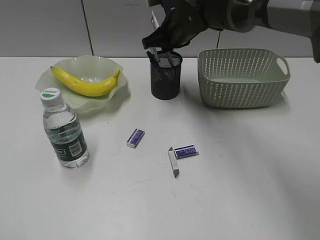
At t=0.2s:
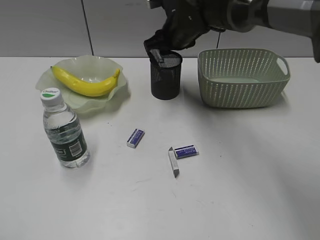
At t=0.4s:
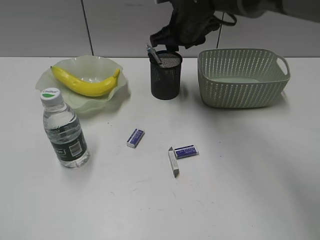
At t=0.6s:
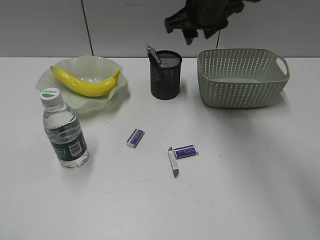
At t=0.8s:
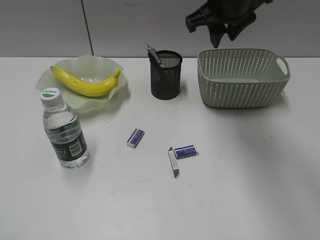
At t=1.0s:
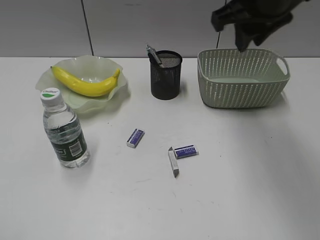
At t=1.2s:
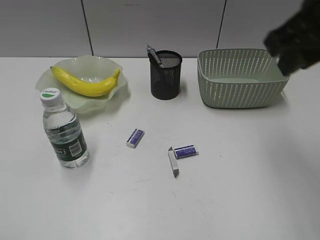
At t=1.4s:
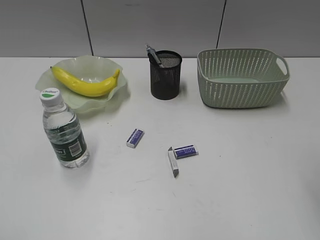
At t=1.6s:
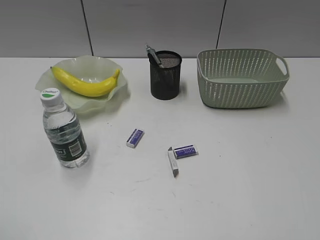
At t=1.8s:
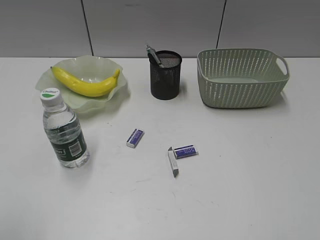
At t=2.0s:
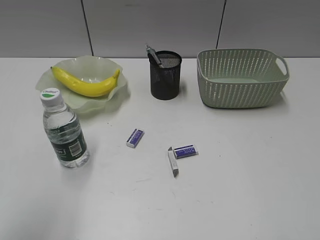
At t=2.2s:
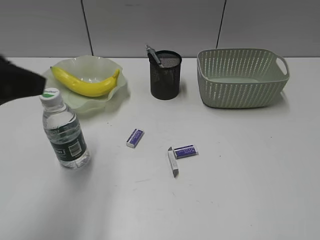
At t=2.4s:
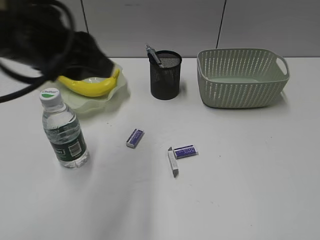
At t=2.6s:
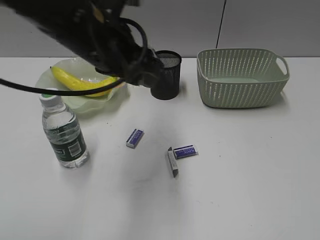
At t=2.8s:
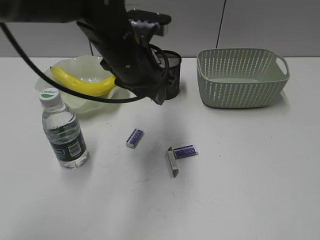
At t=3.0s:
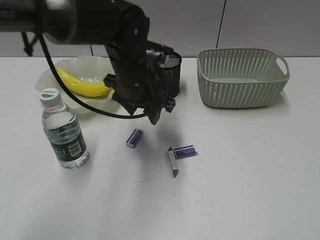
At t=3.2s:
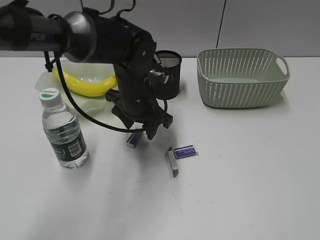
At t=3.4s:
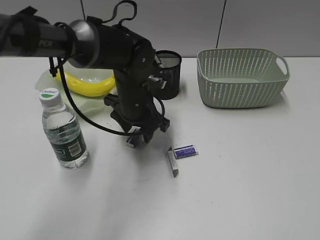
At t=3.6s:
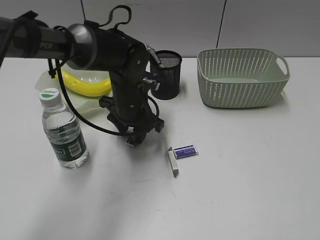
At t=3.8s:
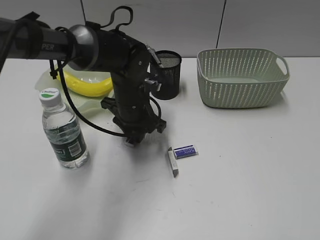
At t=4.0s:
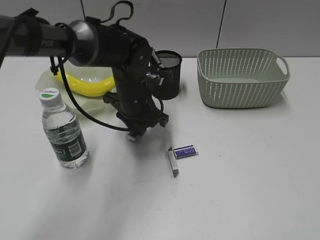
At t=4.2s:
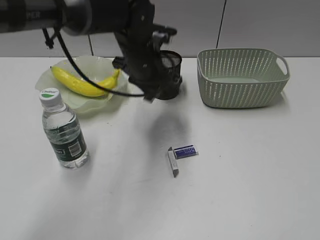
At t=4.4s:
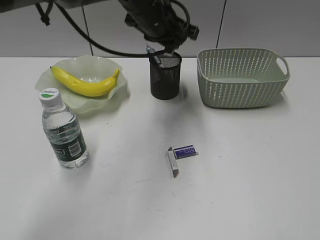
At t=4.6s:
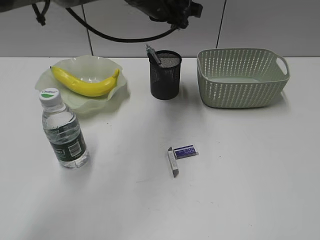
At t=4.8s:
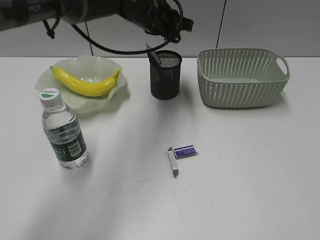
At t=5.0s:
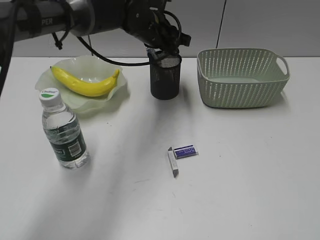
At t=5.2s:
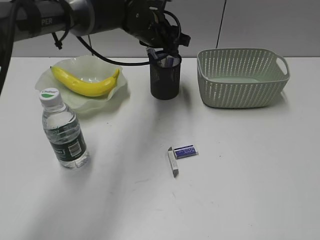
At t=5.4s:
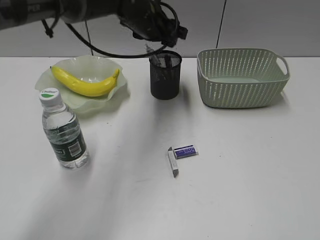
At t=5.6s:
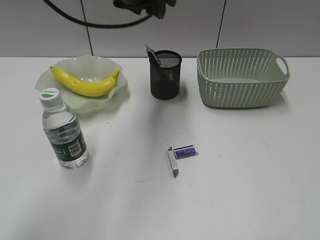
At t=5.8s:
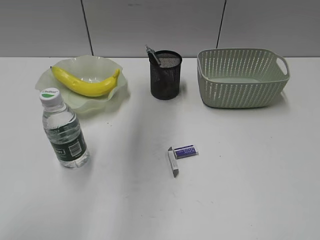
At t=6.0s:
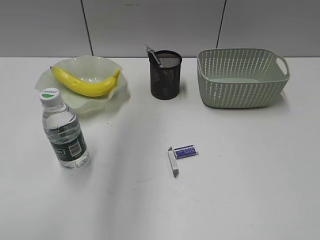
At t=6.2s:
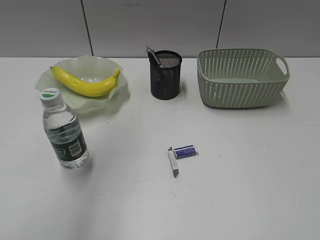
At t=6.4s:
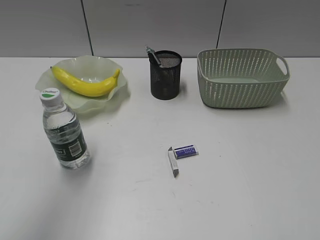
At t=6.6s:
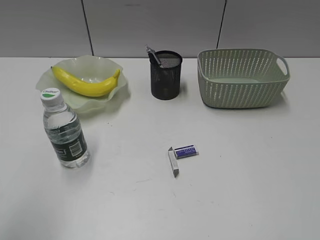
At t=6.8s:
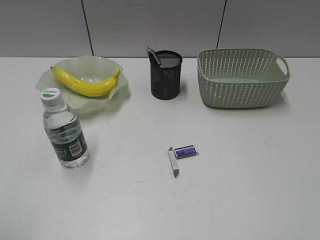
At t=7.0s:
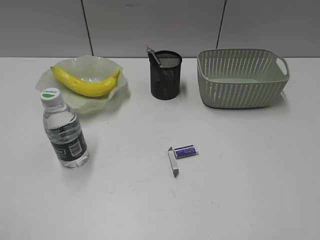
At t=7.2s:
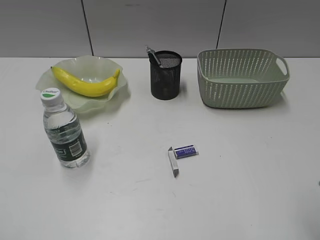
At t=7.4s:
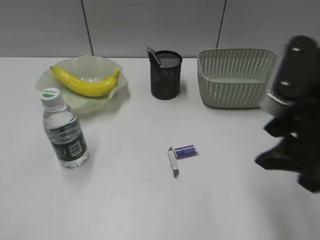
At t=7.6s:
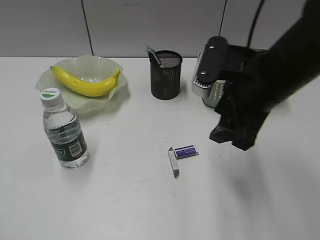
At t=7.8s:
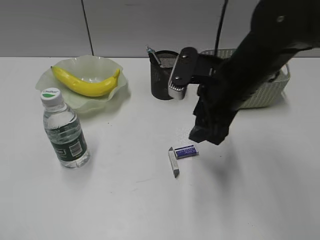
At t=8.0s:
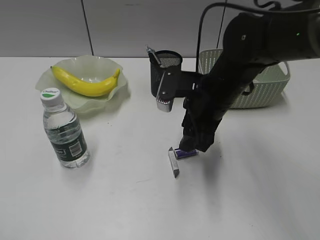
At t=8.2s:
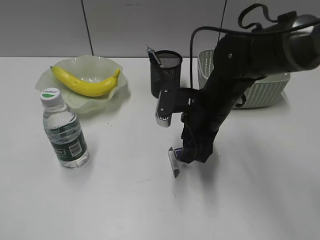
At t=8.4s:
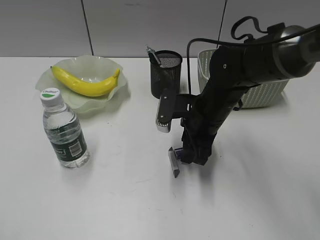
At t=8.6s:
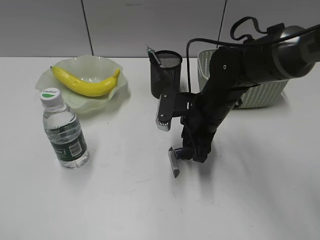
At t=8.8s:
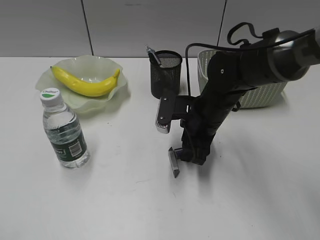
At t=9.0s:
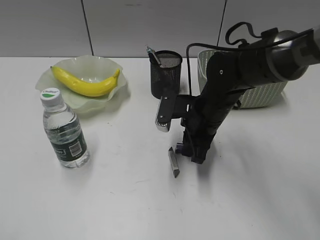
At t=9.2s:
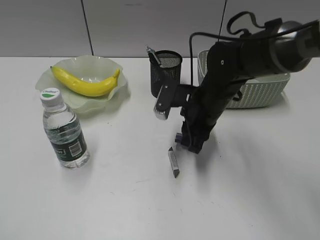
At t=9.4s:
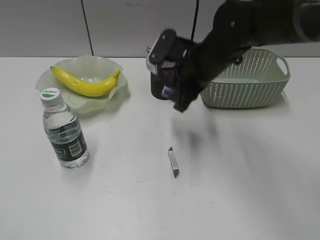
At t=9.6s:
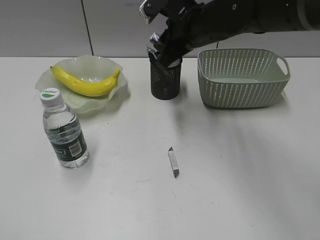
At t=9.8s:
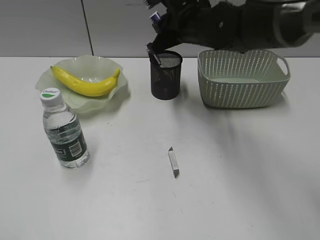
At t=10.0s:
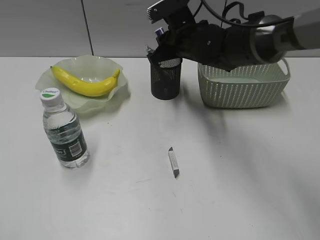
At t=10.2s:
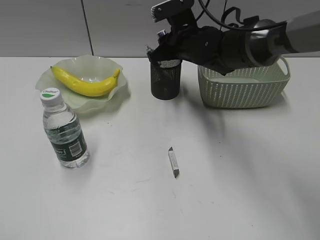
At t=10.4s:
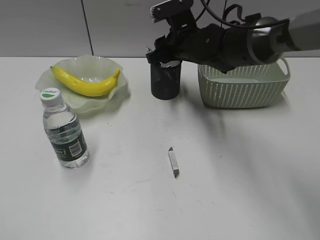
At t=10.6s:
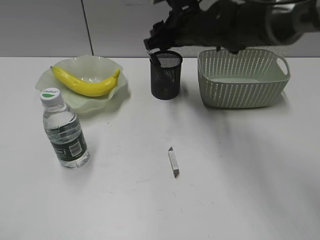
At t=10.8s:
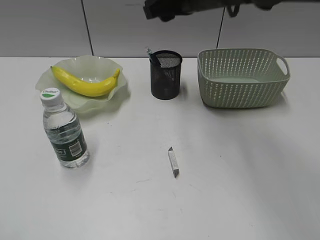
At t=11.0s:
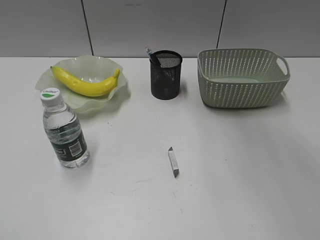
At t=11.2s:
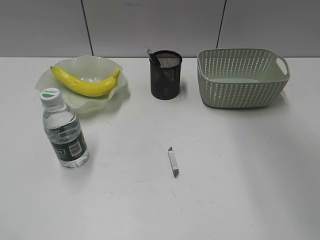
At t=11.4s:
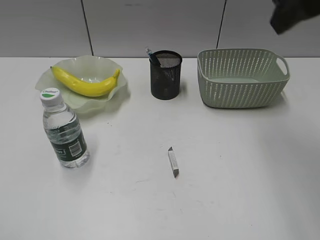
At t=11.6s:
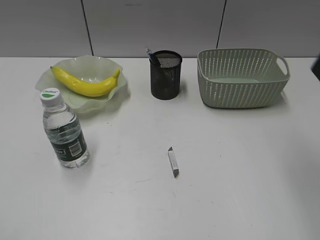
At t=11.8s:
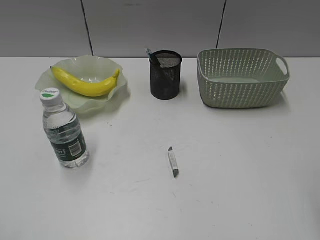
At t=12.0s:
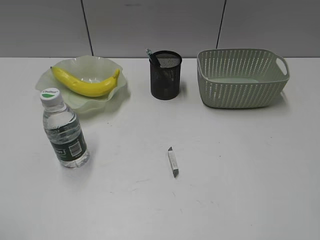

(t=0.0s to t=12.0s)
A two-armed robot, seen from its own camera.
Step, t=0.4s - t=3.8s: Grasp the eraser with left gripper.
Step, t=4.0s - t=5.2s: Place the eraser in pen holder with left gripper.
Step, t=5.4s - t=9.0s: Grasp the eraser with right gripper.
Step, t=9.2s - t=10.4s: Place the eraser in pen holder with right gripper.
t=0.0s - t=1.6s: The right gripper moves backward and to the right, about 40 cm.
t=1.6s - t=3.0s: The left gripper shifts some 40 cm forward and to the right. The right gripper heads backward and to the right, covering roughly 10 cm.
t=3.0s - t=4.4s: The left gripper moves upward and forward, approximately 10 cm, and closes.
t=4.4s - t=6.0s: The left gripper is displaced upward, to the left and backward by about 25 cm, and opens its fingers.
t=6.0s - t=7.6s: The left gripper moves backward, to the left and downward, about 40 cm. Meanwhile the right gripper heads forward and to the left, covering roughly 30 cm, and opens.
t=7.6s - t=9.0s: The right gripper is displaced downward and forward by roughly 15 cm, and closes.
t=9.0s - t=10.4s: The right gripper goes roughly 10 cm forward and upward, and opens its fingers.
t=10.4s - t=12.0s: The right gripper is displaced backward and to the right by approximately 40 cm.

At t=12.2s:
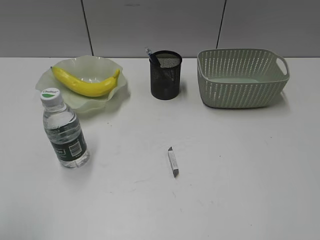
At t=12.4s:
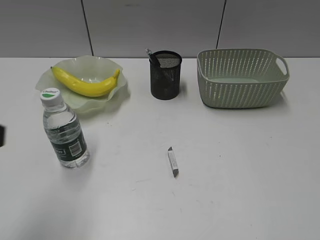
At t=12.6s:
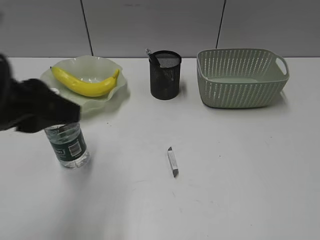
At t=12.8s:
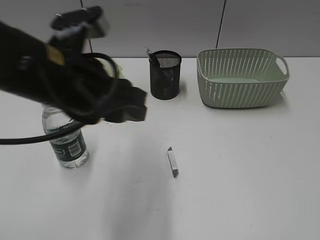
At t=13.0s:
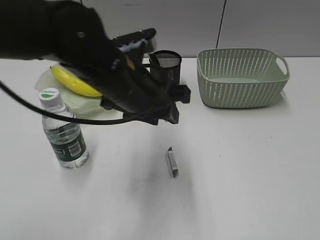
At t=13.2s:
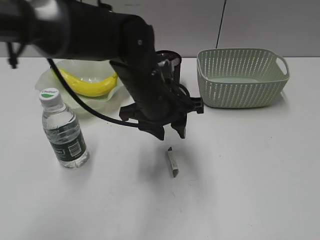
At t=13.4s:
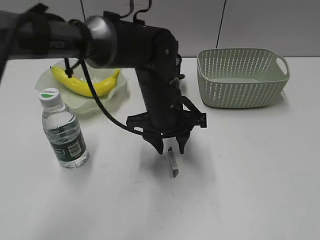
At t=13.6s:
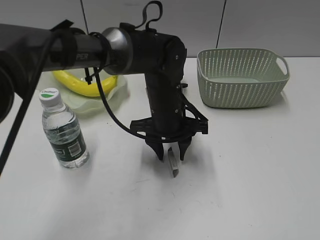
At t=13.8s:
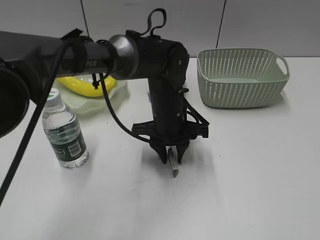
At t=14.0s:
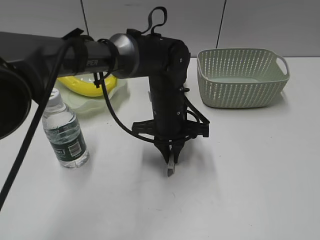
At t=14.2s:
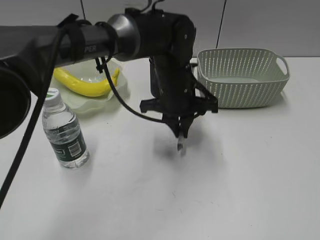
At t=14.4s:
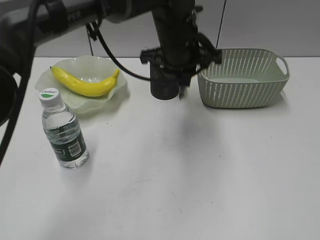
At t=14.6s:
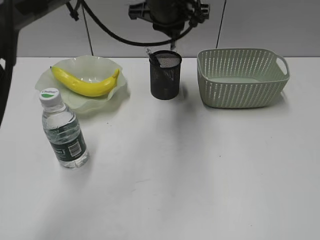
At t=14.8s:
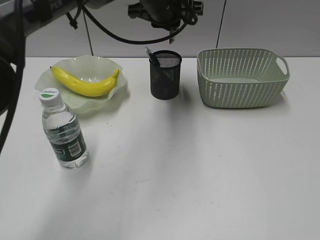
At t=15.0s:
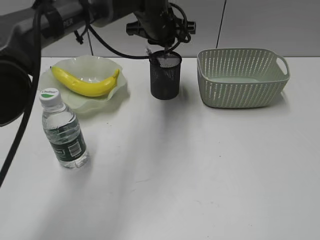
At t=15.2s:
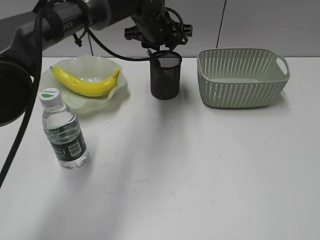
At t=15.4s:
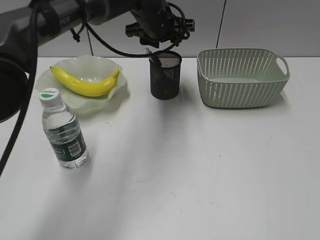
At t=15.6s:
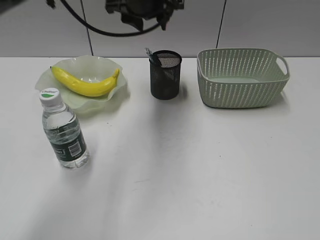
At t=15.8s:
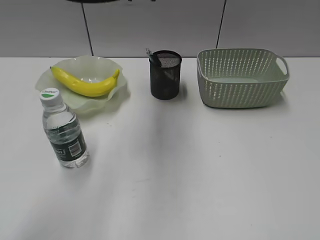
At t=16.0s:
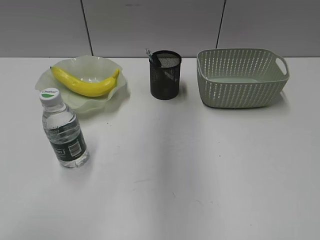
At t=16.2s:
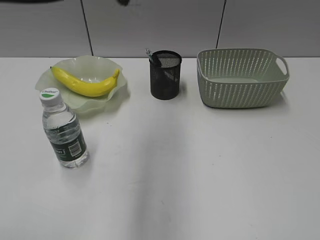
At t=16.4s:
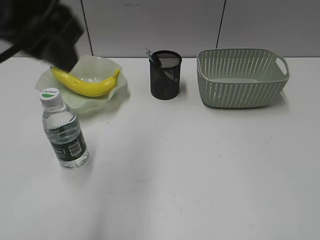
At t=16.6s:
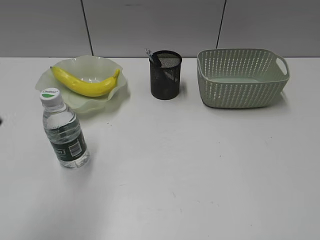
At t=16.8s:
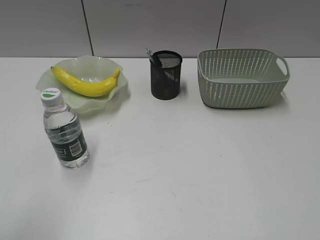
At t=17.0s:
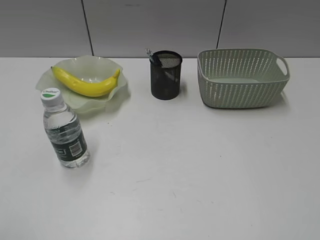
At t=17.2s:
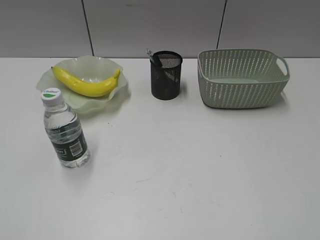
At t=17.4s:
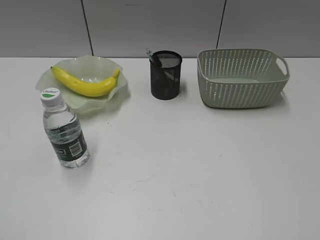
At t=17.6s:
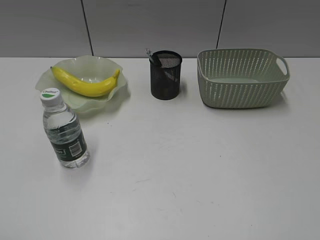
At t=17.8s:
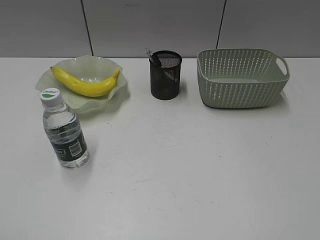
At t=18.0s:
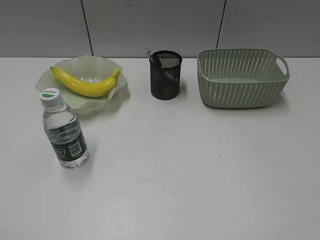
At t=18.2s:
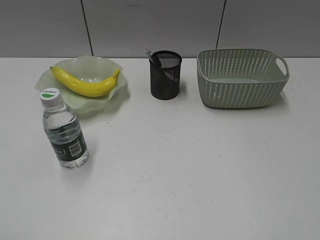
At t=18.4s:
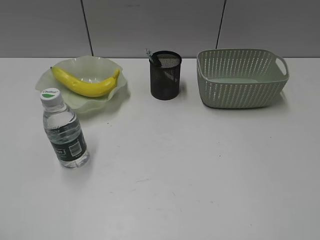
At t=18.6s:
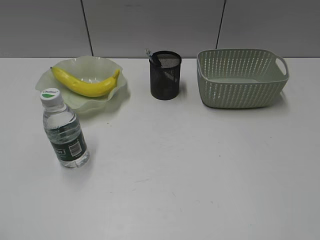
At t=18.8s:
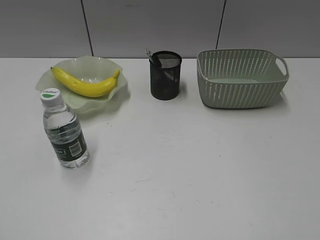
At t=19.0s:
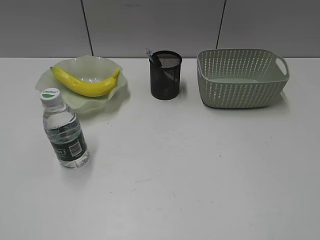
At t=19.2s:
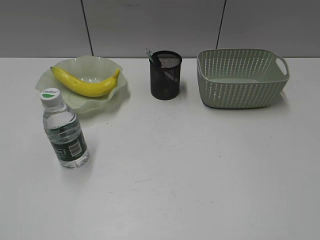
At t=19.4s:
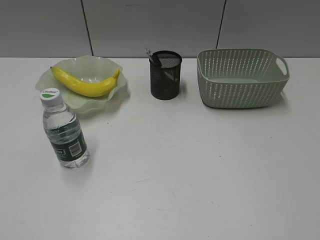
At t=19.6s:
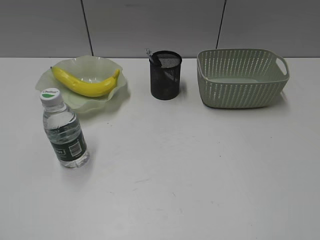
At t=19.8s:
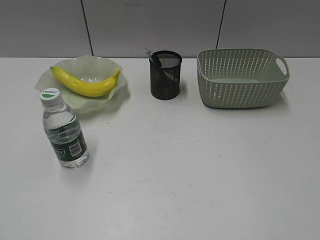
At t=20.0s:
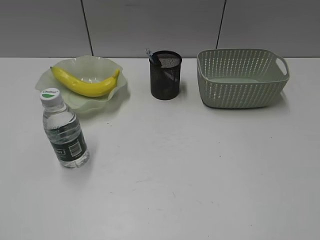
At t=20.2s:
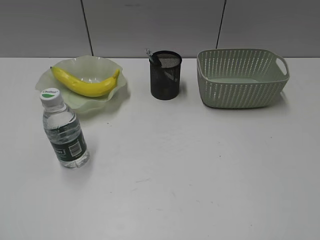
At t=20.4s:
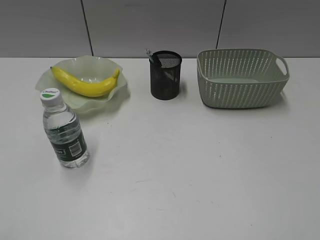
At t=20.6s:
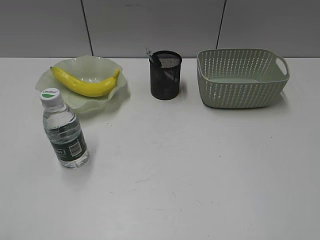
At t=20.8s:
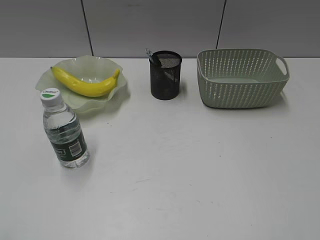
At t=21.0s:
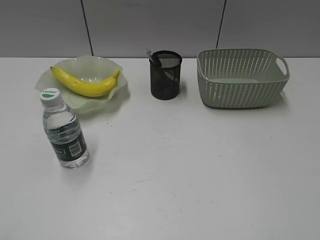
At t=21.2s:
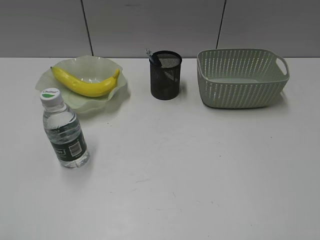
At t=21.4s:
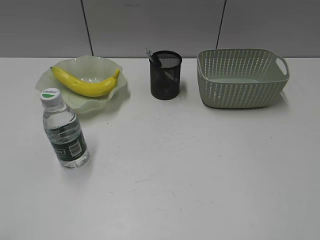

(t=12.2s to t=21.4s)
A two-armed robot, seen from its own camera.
Step, t=12.2s - t=14.0s: Grasp the eraser with left gripper.
Step, t=14.2s - t=15.2s: Place the eraser in pen holder with left gripper.
t=12.2s - t=13.8s: The left gripper is displaced to the right, forward and downward by about 50 cm. The right gripper travels backward by about 5 cm.
t=13.8s - t=15.2s: The left gripper travels forward and upward by about 15 cm.
t=15.2s - t=16.8s: The left gripper goes roughly 50 cm backward and to the left.
